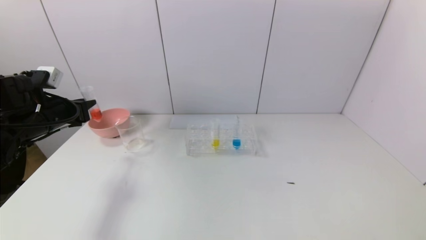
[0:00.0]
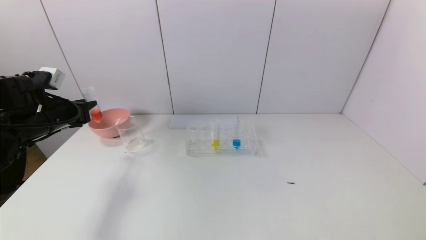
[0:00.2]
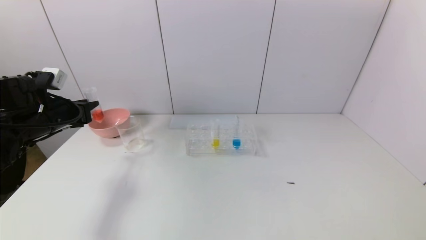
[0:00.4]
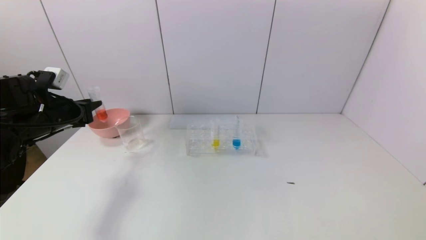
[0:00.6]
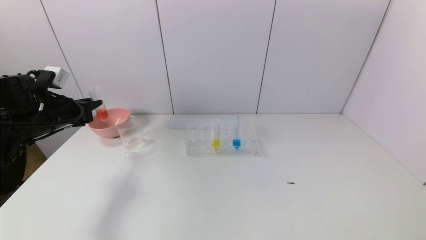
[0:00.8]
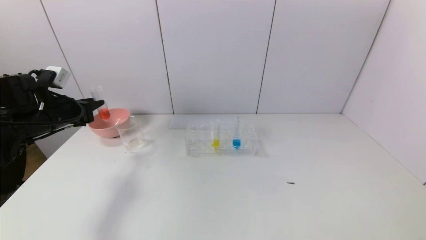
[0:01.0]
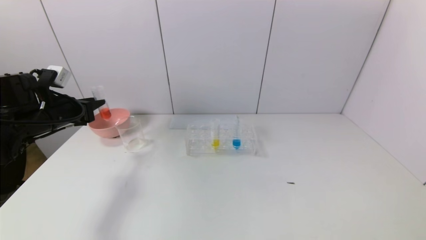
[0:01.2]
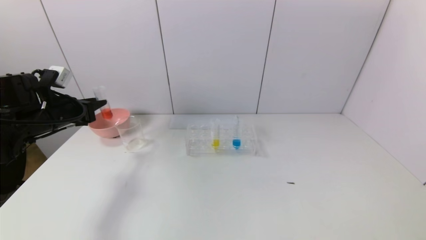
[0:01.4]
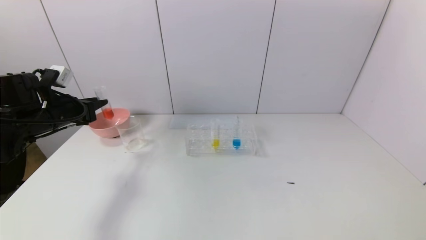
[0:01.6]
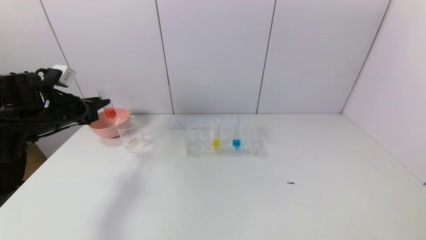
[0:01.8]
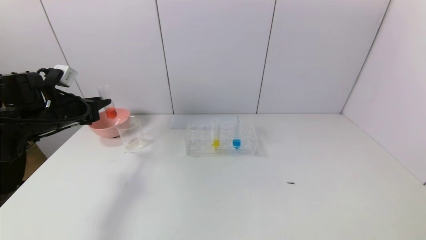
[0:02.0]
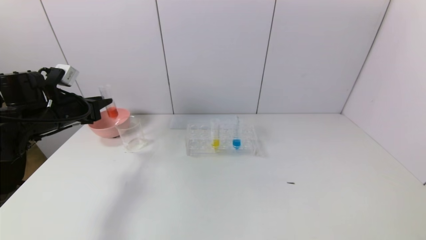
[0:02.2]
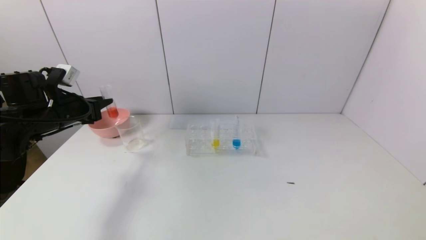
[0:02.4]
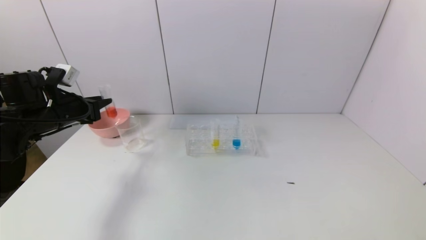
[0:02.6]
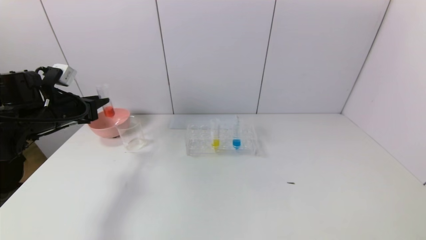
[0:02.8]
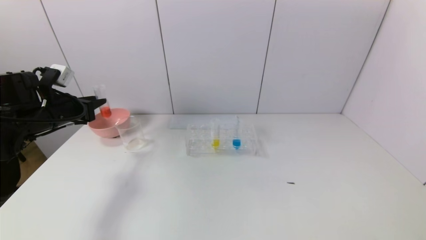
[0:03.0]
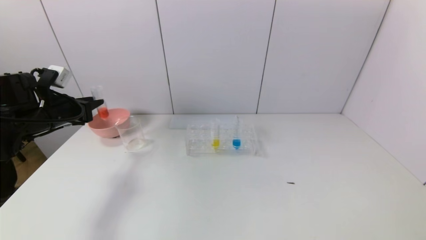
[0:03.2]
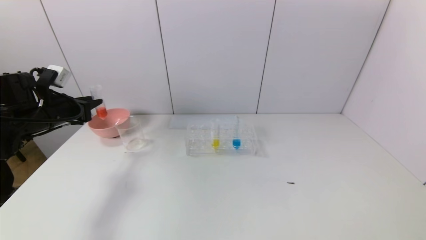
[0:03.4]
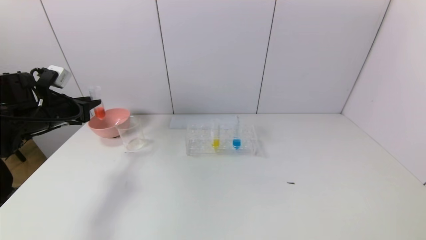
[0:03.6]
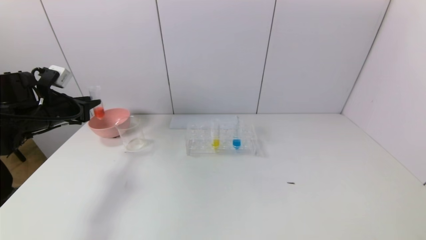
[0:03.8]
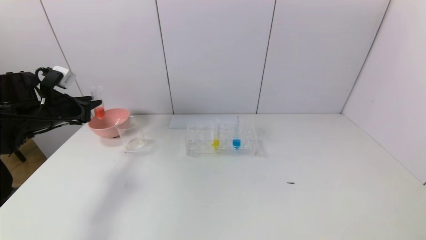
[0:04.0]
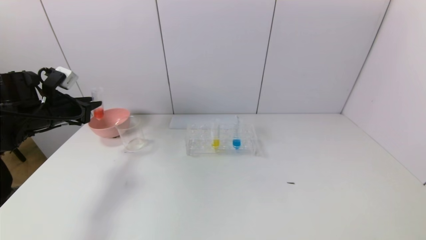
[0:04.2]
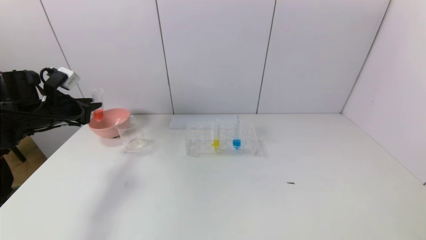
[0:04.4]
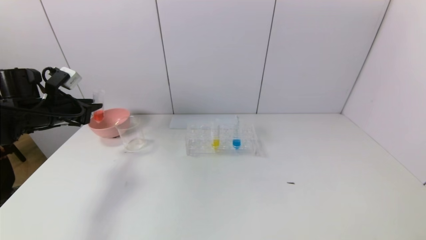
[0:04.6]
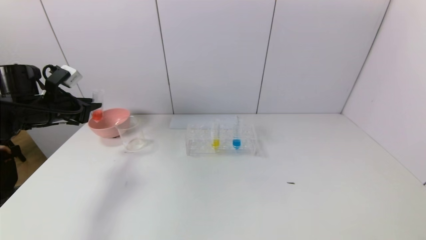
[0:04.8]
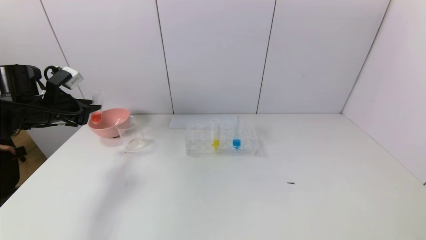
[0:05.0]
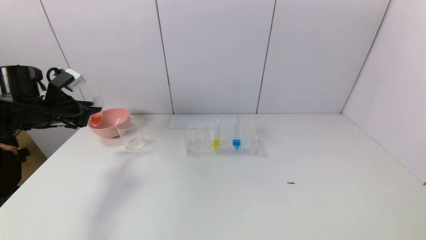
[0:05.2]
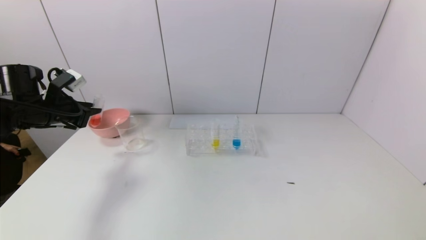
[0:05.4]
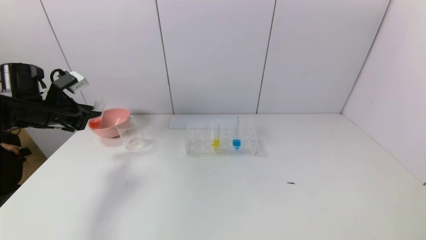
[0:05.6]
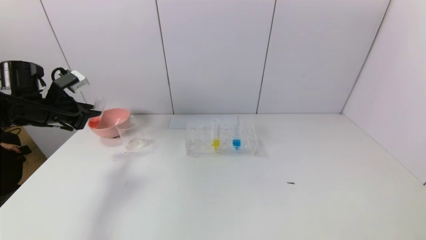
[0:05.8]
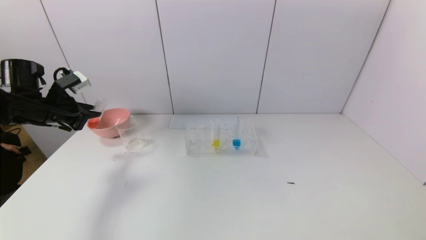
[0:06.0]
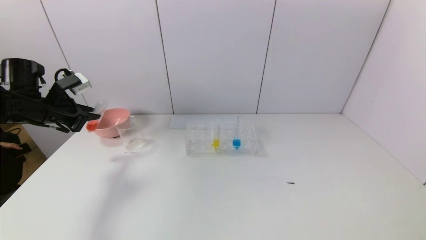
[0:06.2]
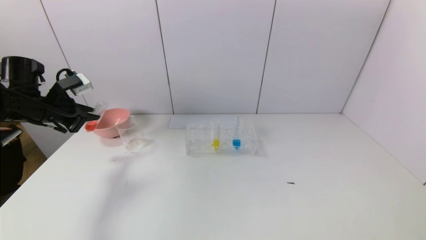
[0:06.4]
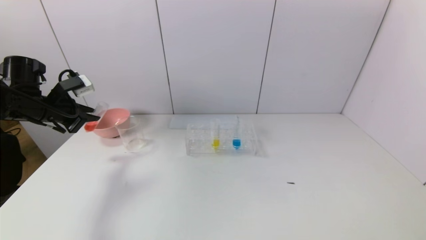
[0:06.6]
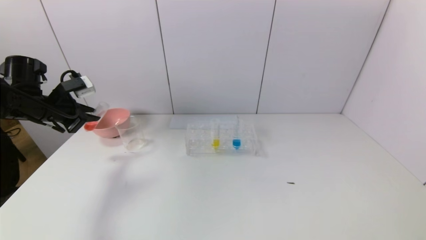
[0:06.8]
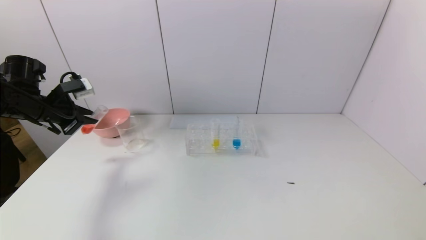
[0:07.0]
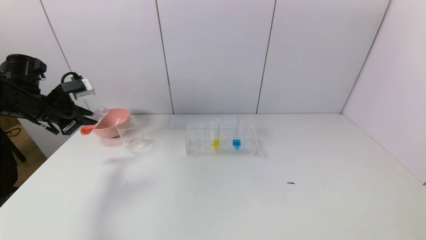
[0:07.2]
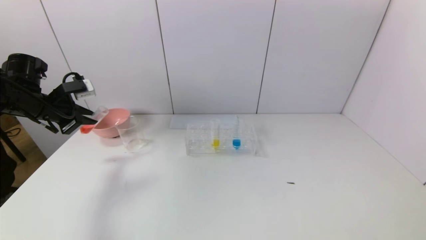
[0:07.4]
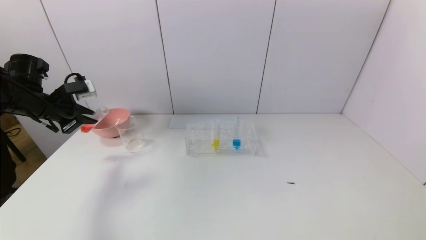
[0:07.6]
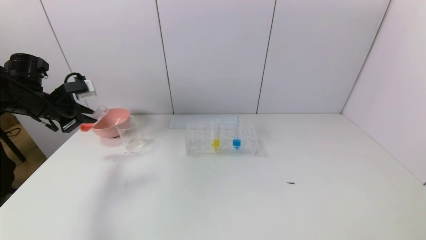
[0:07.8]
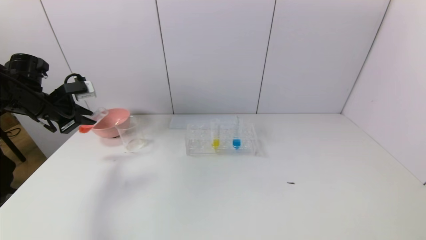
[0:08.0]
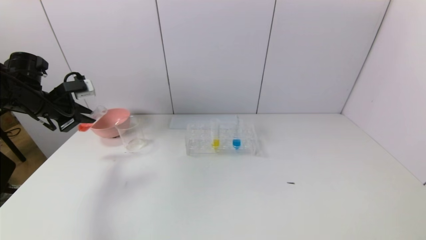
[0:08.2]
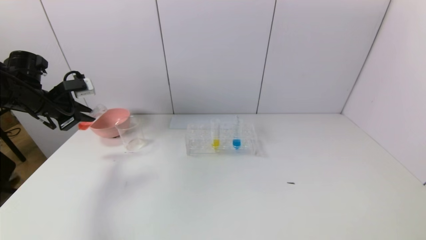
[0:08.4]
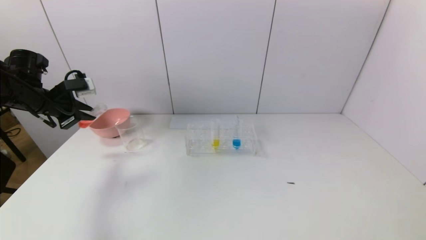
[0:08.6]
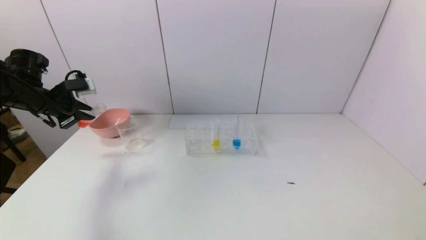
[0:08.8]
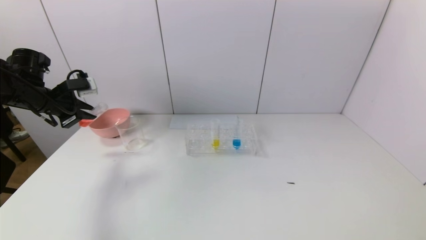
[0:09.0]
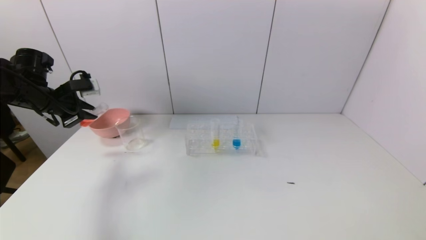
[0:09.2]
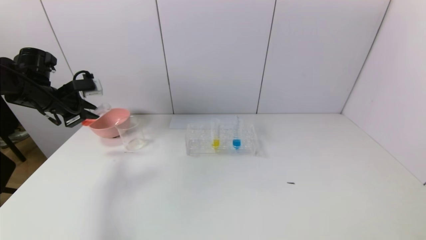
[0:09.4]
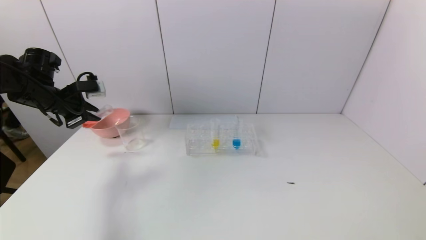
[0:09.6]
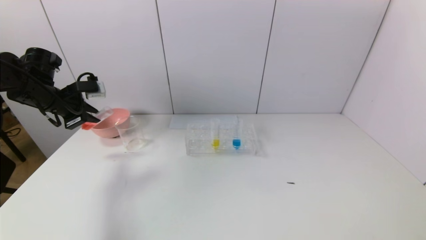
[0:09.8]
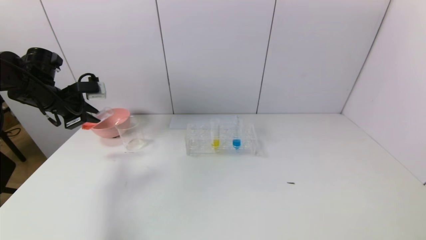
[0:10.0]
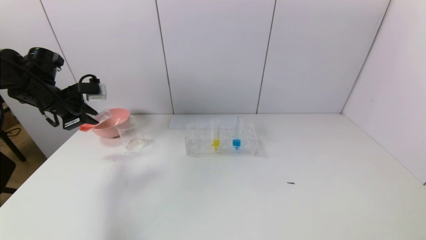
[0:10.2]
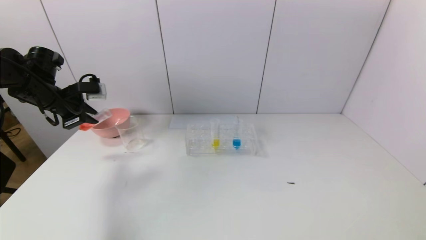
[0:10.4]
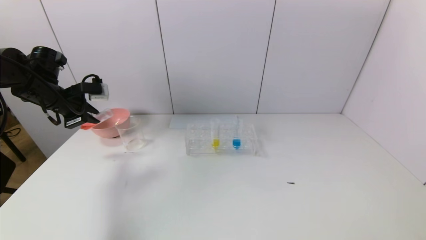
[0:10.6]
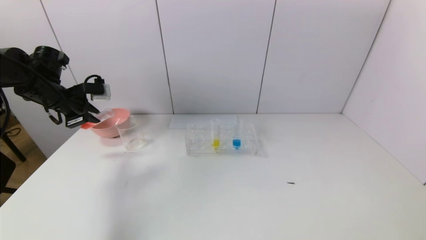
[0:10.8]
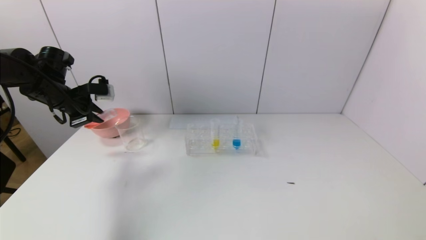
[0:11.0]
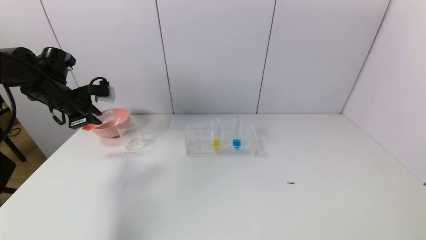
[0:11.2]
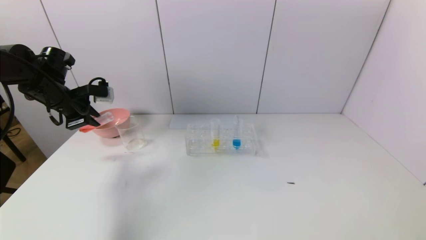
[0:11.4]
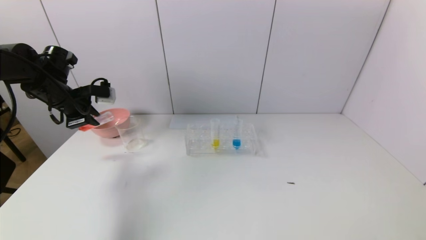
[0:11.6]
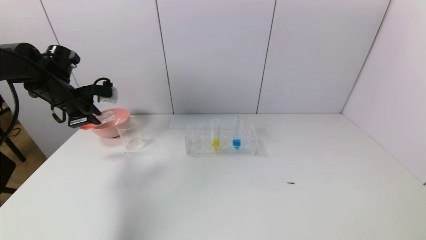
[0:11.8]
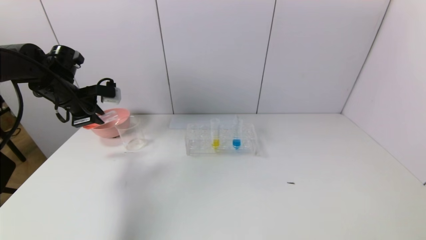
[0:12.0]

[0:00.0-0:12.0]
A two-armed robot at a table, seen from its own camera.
Task of the whole recording: pick up the test tube with yellow pigment and the test tube with red pigment by grippers and pour them into the beaker.
0:00.0 to 0:01.6: The grippers make only small movements.
0:01.6 to 0:03.0: Neither gripper changes place.
0:03.0 to 0:04.4: The grippers make only small movements.
0:04.4 to 0:06.0: The grippers stay close to where they were, moving slightly.
0:07.6 to 0:10.4: The grippers make only small movements.
0:10.4 to 0:12.0: The grippers move only a little.

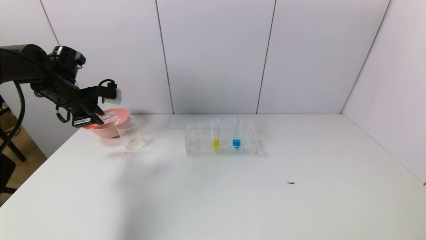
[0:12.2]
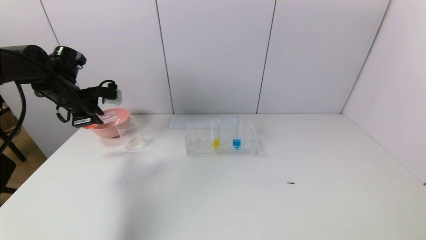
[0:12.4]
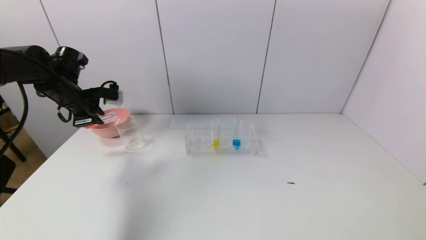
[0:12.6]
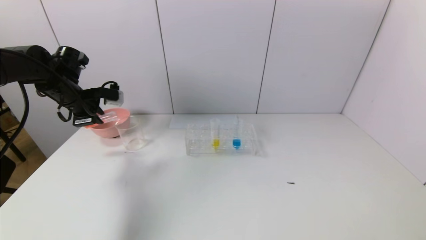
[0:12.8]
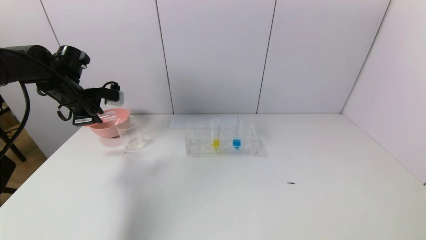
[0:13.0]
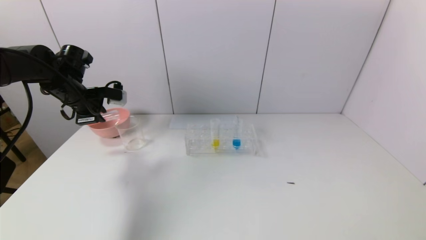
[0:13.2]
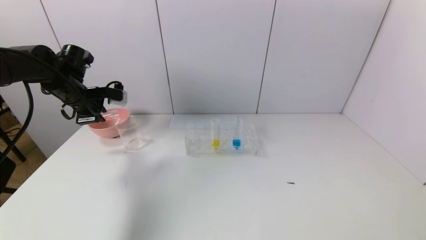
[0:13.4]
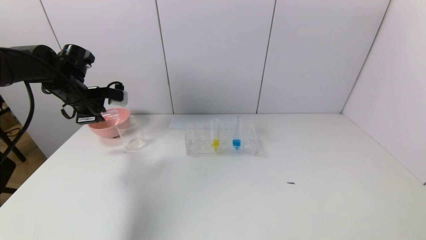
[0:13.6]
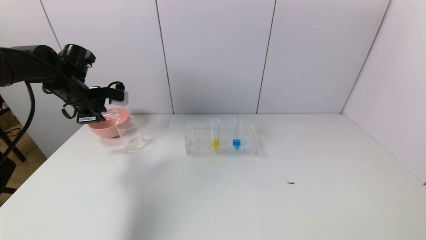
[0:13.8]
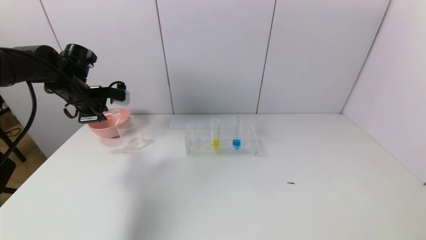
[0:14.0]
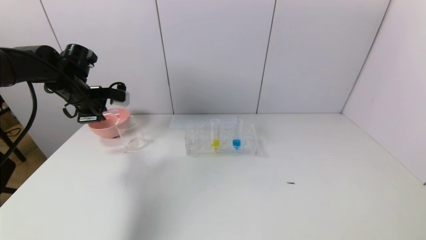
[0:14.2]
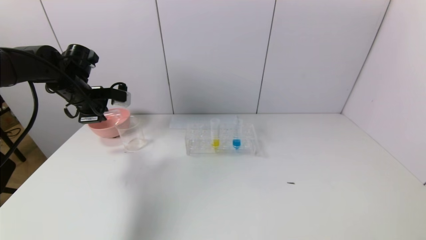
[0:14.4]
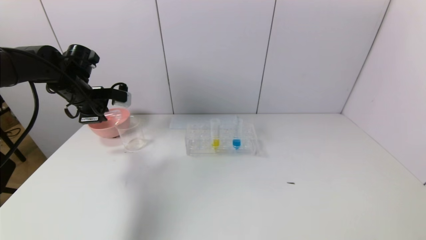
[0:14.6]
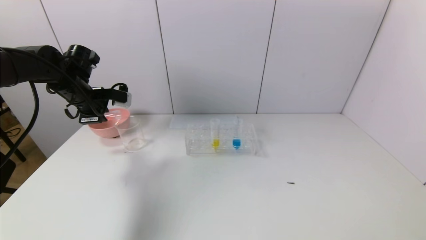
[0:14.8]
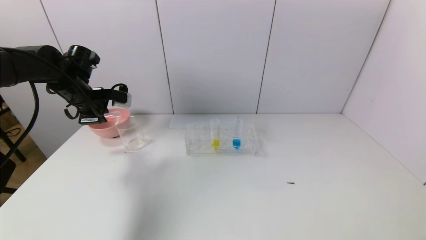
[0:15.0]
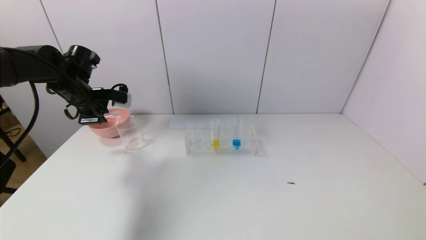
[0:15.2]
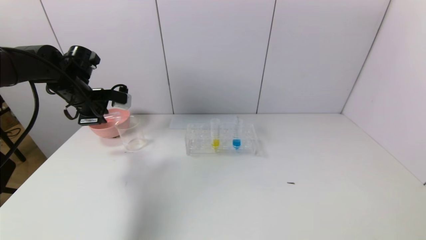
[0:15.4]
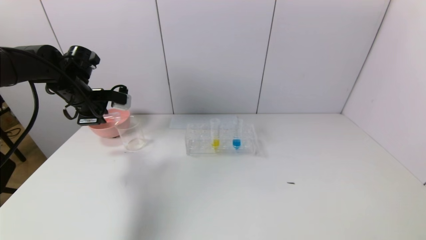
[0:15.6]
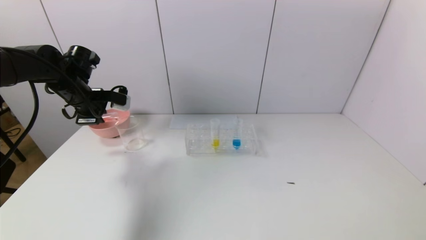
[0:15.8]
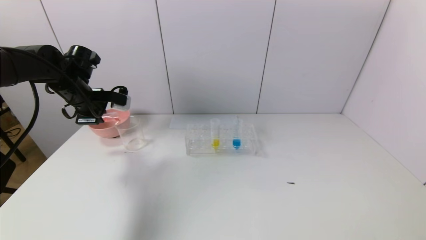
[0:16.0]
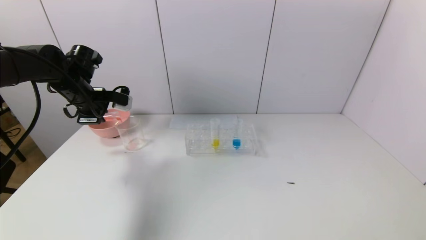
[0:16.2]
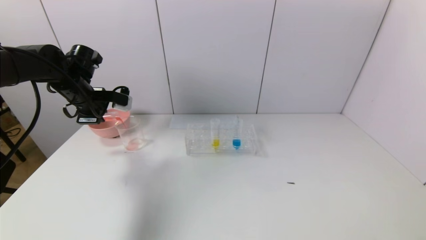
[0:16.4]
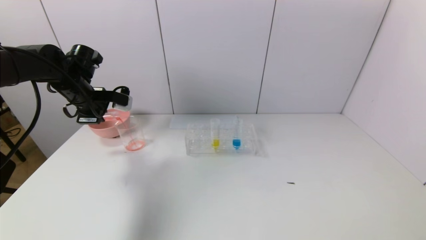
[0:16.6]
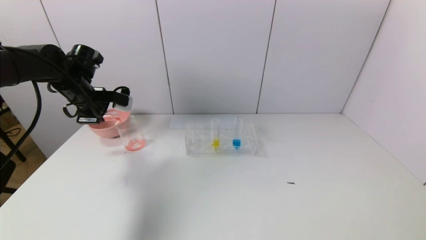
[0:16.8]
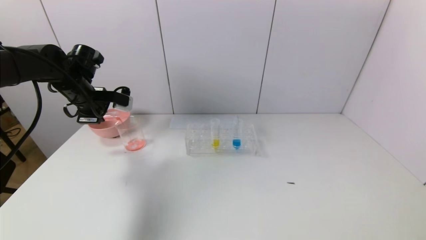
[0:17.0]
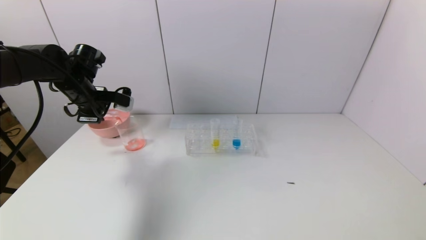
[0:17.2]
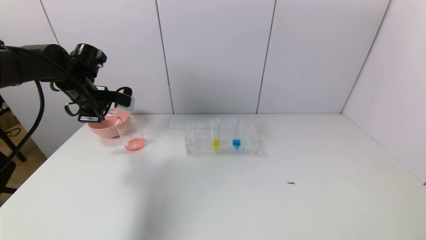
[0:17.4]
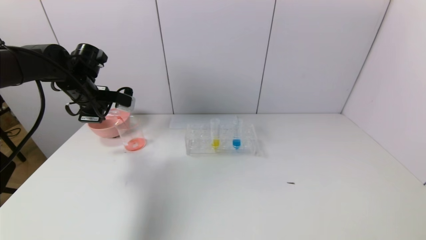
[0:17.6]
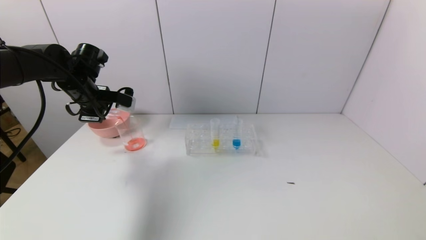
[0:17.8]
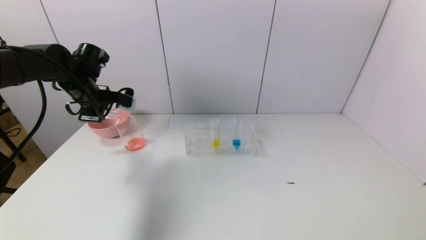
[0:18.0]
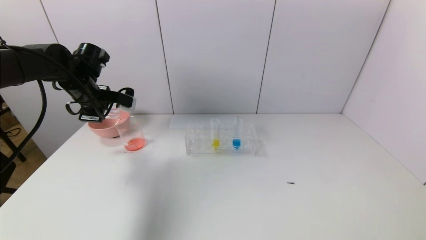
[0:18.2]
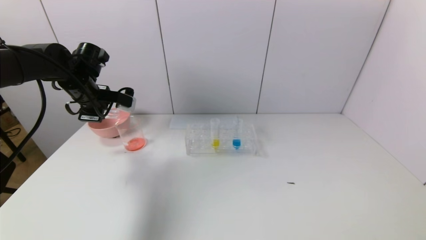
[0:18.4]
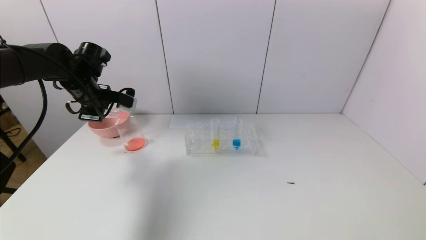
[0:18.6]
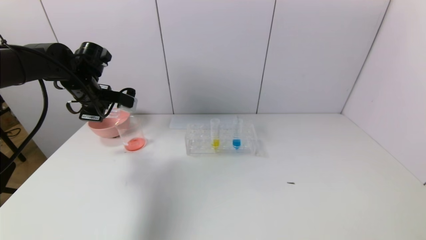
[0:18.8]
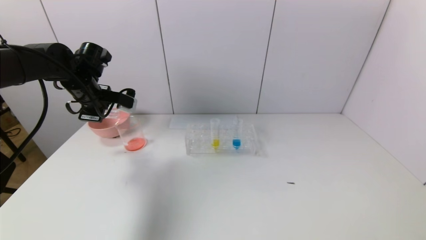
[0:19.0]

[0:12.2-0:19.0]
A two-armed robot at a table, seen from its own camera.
Task of the whole recording: pick up the test tube with yellow pigment and the test tube with red pigment by grippers and pour them into the beaker.
0:12.2 to 0:13.6: The grippers make only small movements.
0:13.6 to 0:15.0: Both grippers stay put.
0:15.0 to 0:16.2: Both grippers stay about where they are.
0:16.2 to 0:17.6: Both grippers stay about where they are.
0:17.6 to 0:19.0: Neither gripper changes place.
